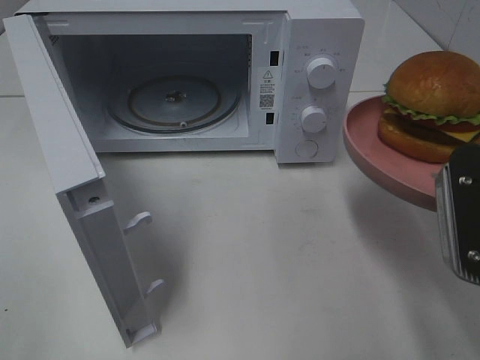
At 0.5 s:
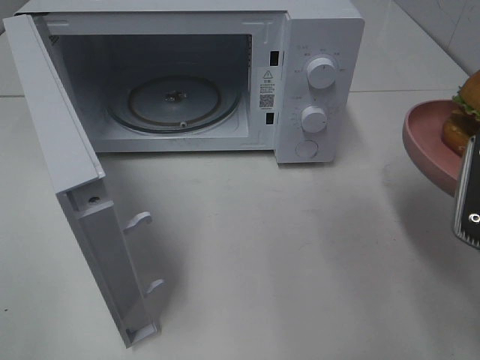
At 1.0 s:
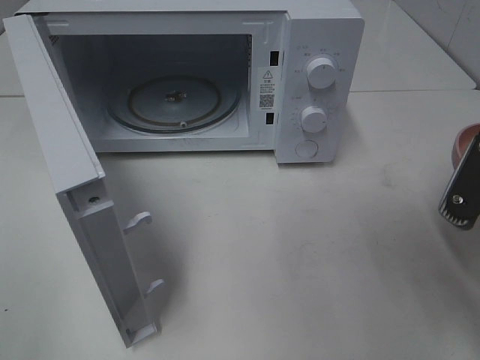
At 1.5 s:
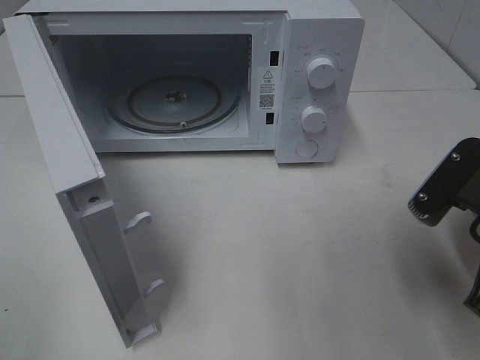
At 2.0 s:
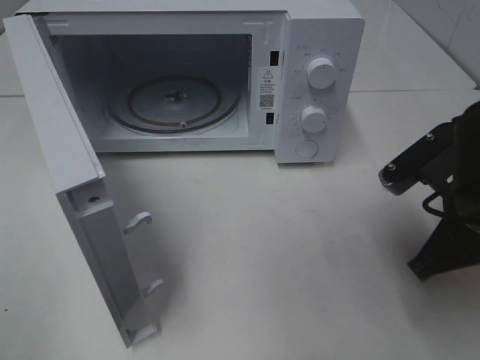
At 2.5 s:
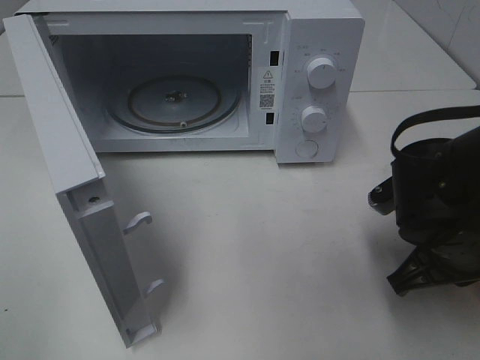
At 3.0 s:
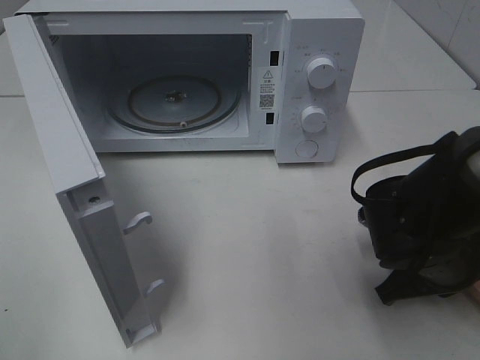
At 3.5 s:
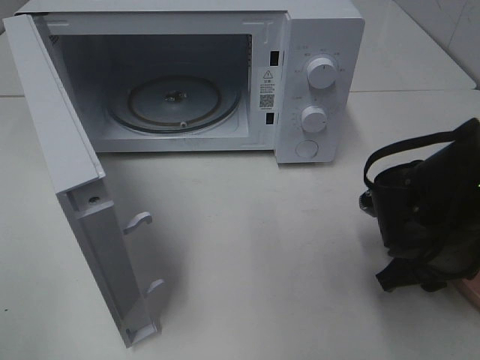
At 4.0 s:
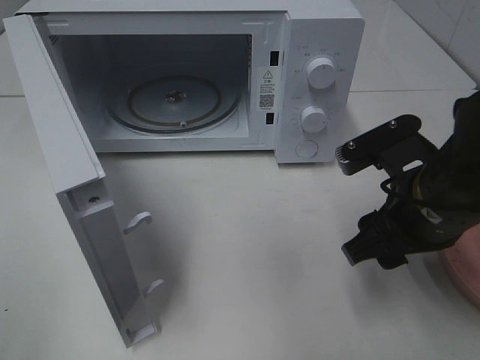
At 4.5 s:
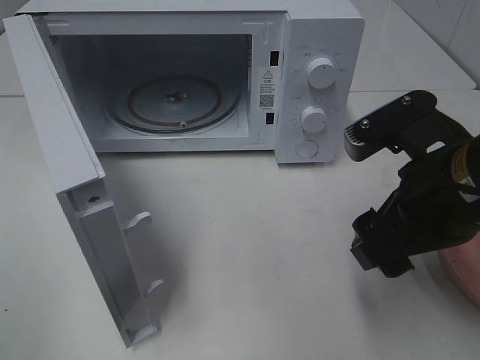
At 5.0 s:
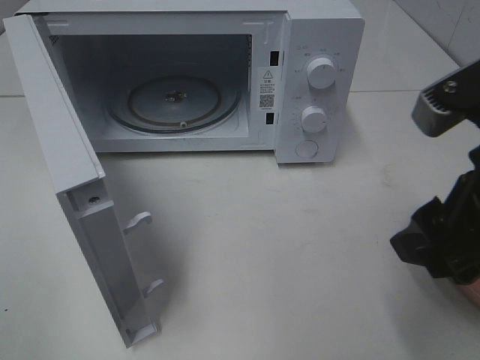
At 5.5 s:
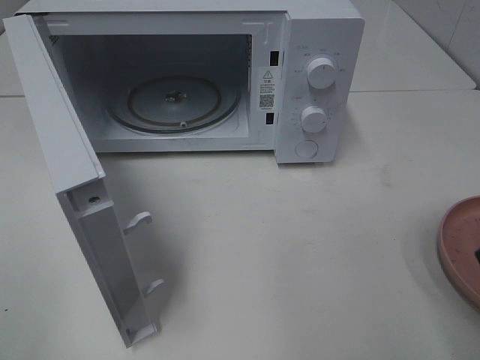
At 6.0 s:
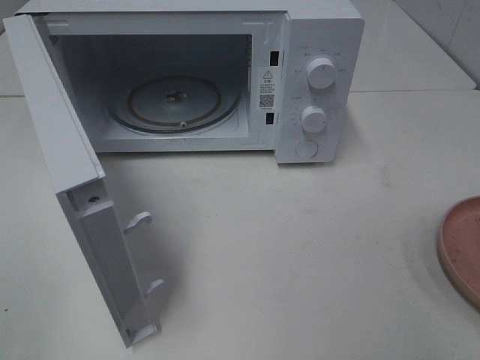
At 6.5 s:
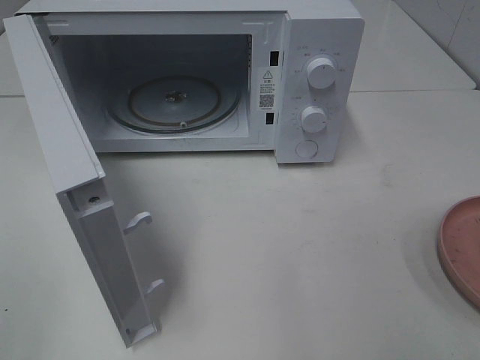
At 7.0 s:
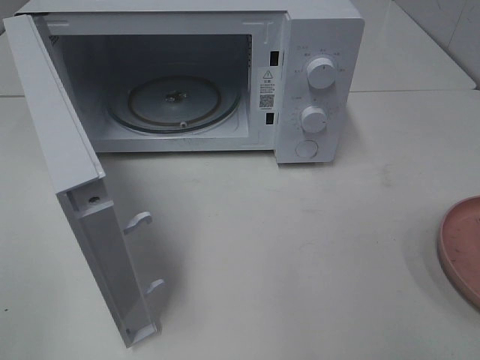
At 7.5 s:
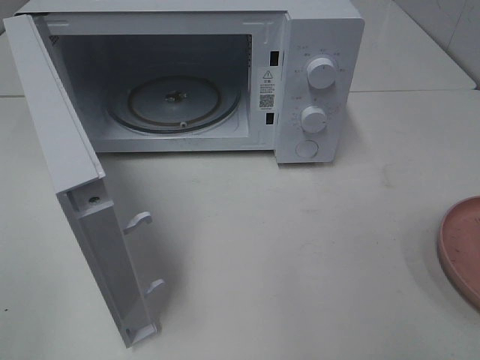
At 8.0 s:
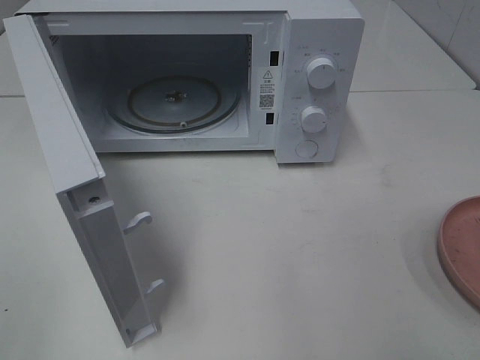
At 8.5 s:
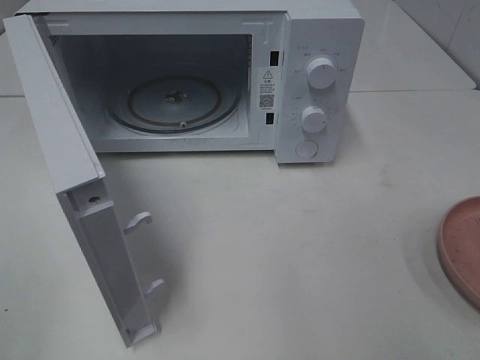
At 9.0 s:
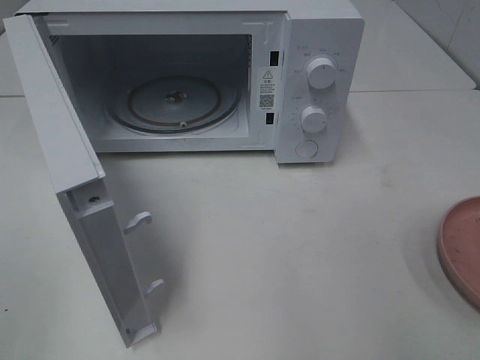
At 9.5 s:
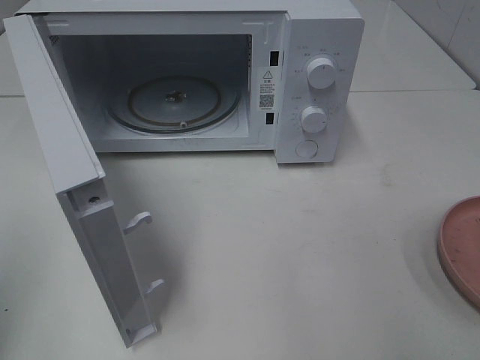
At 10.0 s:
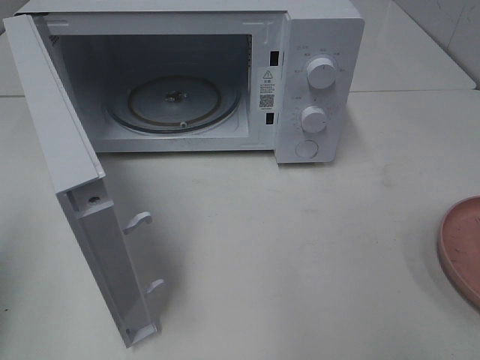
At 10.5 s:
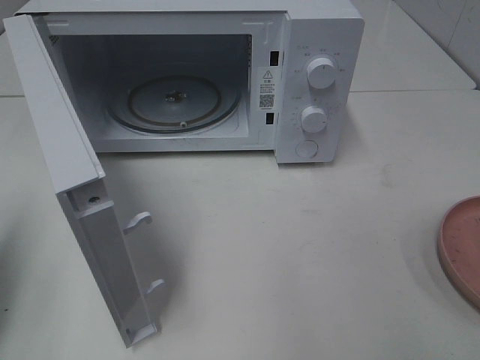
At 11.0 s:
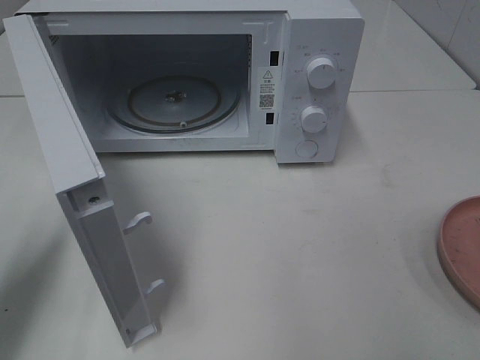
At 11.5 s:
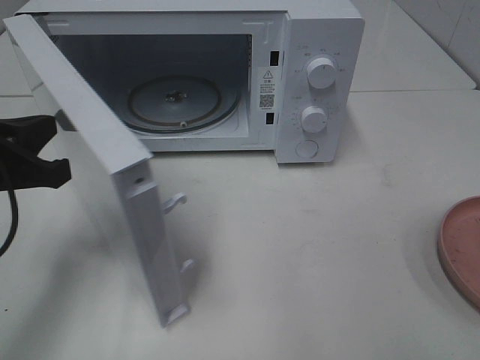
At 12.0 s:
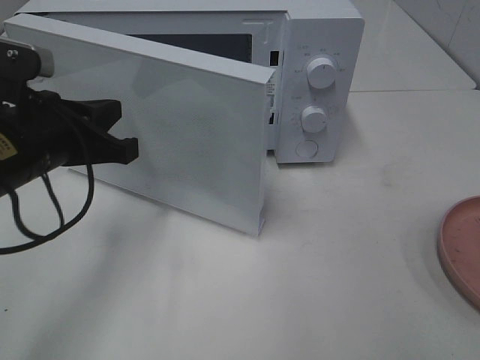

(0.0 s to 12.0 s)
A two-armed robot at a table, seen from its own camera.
Task of the whole recording: Heat the burger.
Step, 0.0 s - 3.5 s: Right hand: place the plate on the table.
0.0 s - 2.0 s: The right gripper heads downward and forward, covering about 10 cm.
2.0 s - 4.0 s: The right gripper reaches roughly 10 cm downward, then returns, and opens up.
4.0 s - 6.0 s: The right gripper moves backward, upward and to the right, approximately 20 cm.
10.0 s - 12.0 s: The left gripper is displaced to the right, forward and downward by approximately 20 cm.

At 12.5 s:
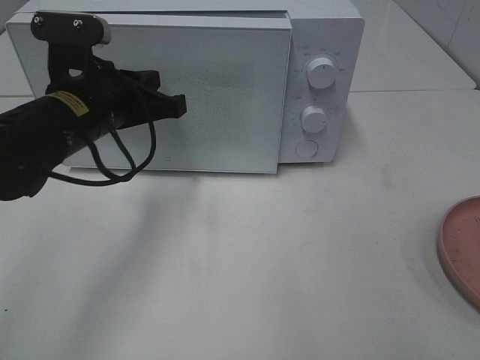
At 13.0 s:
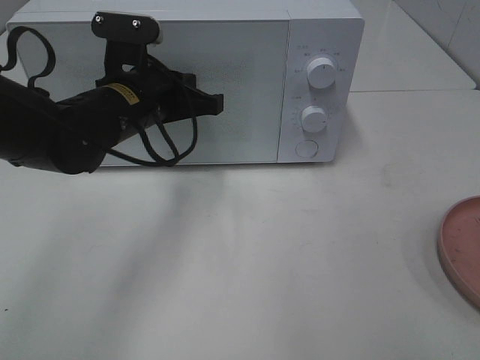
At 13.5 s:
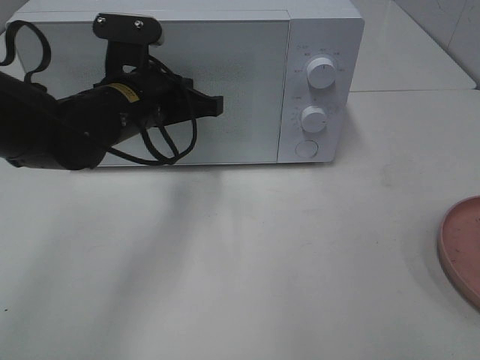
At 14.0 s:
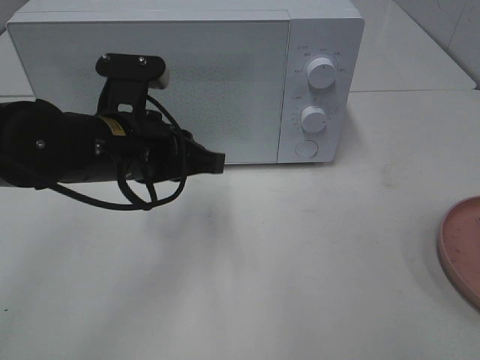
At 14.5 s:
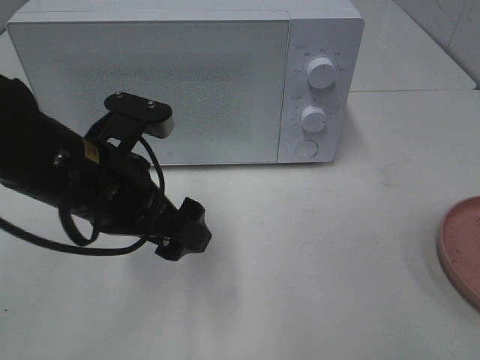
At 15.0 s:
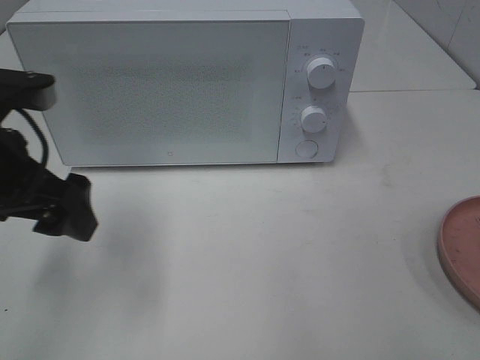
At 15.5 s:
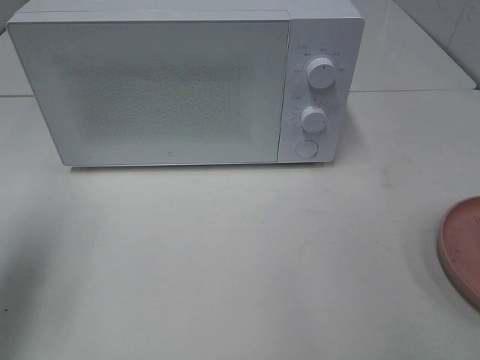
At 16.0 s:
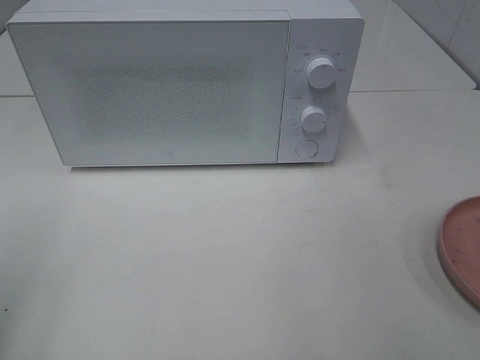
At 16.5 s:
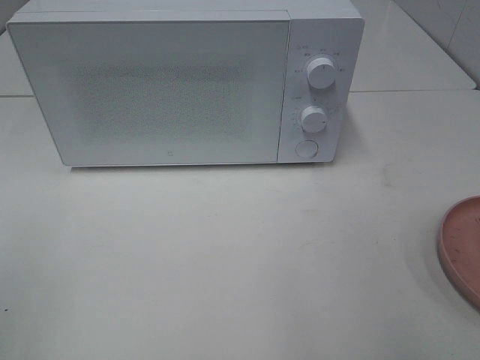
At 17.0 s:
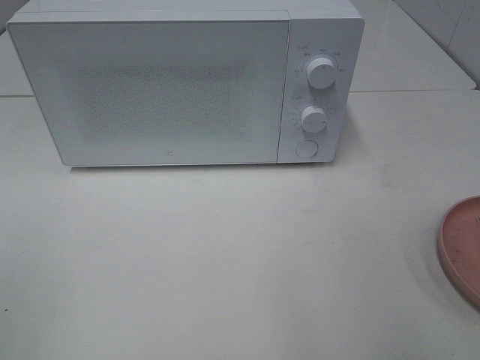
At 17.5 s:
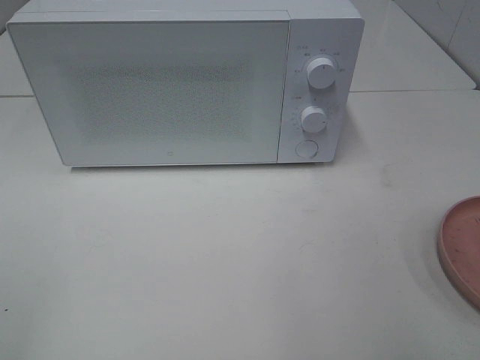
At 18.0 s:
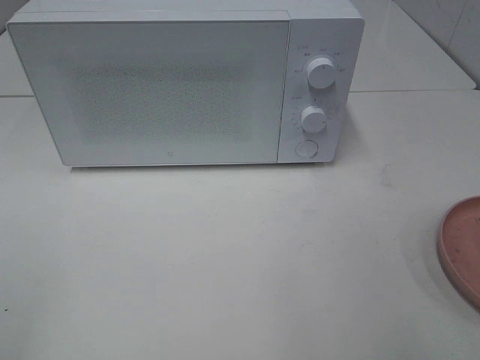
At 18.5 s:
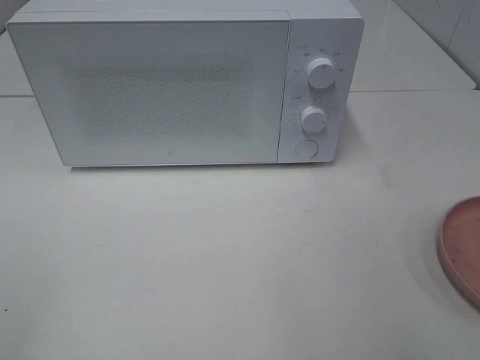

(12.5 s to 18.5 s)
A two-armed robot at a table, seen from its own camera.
Task of the whole recording: Heat the burger.
12.5 s - 14.5 s: The left gripper is displaced backward by approximately 10 cm, and opens up.
14.5 s - 16.5 s: The left gripper is displaced to the left, backward and upward by approximately 30 cm.

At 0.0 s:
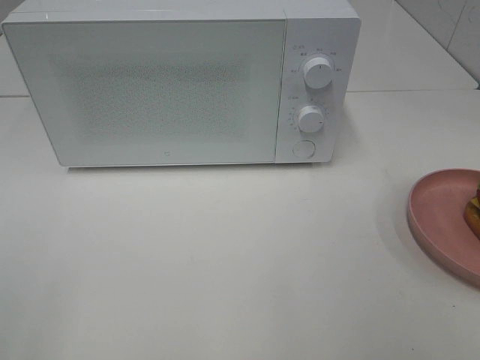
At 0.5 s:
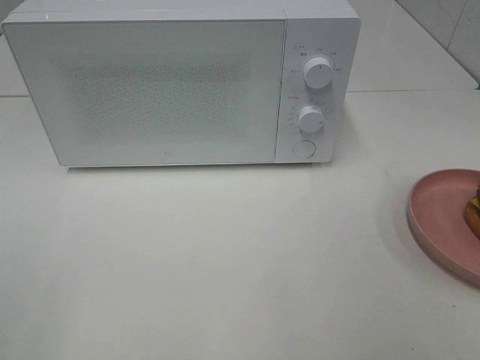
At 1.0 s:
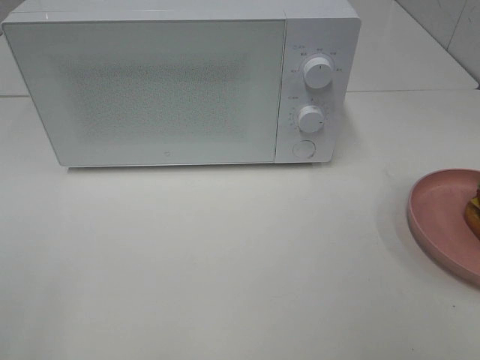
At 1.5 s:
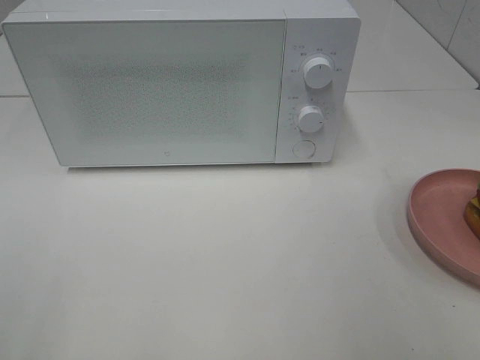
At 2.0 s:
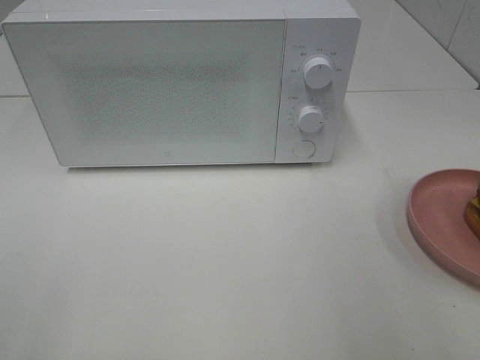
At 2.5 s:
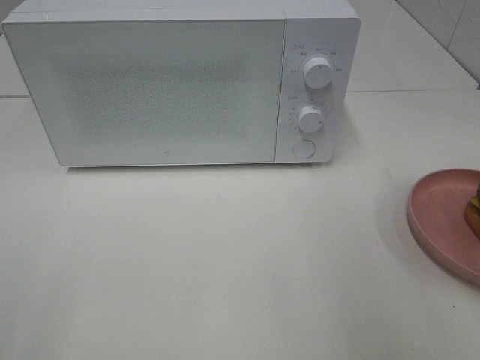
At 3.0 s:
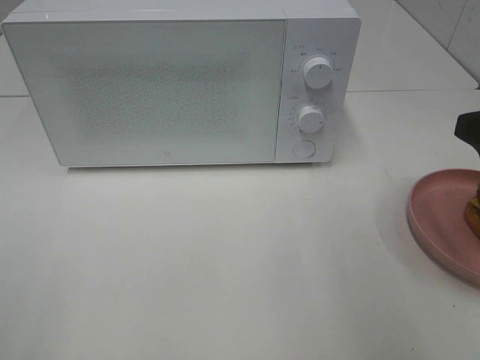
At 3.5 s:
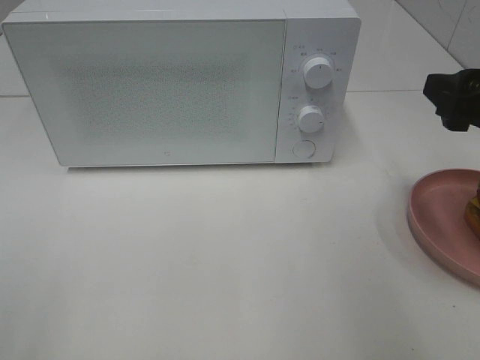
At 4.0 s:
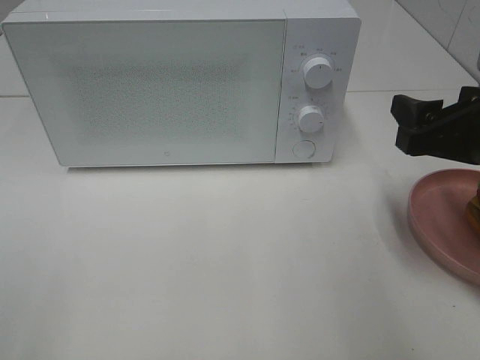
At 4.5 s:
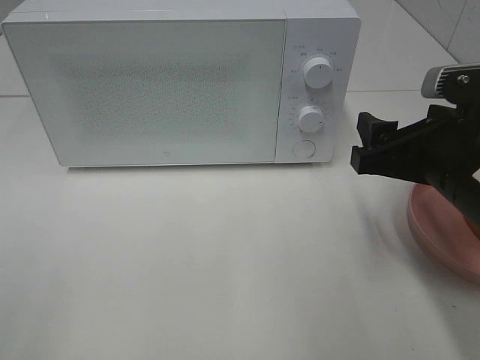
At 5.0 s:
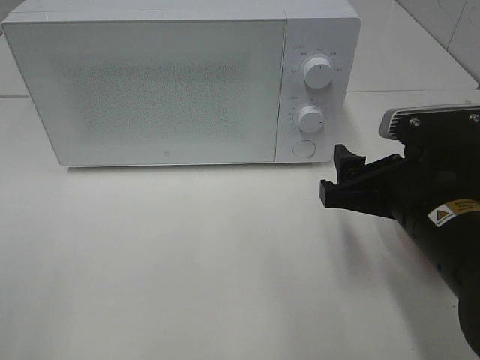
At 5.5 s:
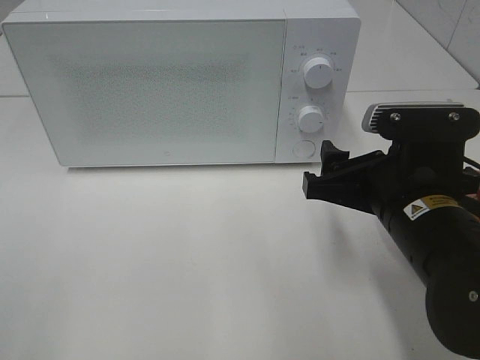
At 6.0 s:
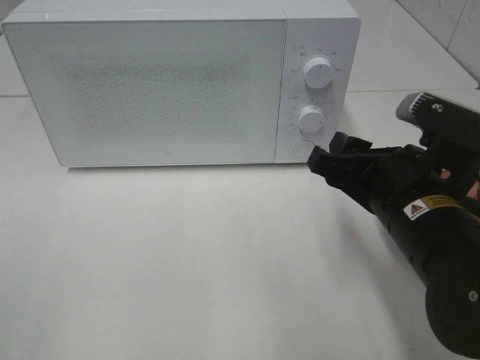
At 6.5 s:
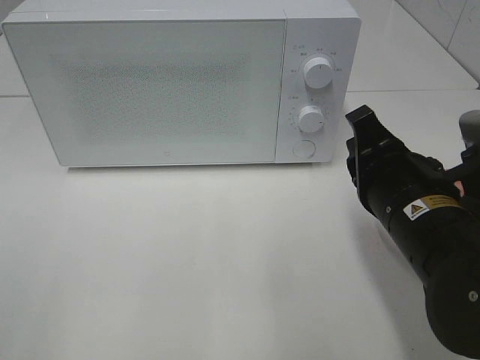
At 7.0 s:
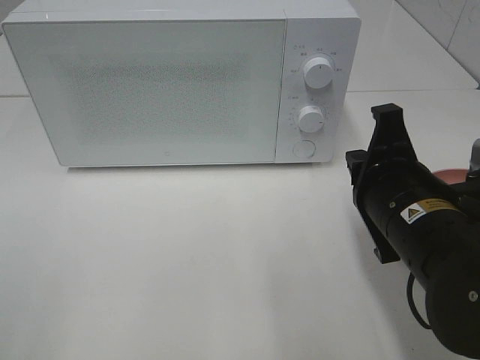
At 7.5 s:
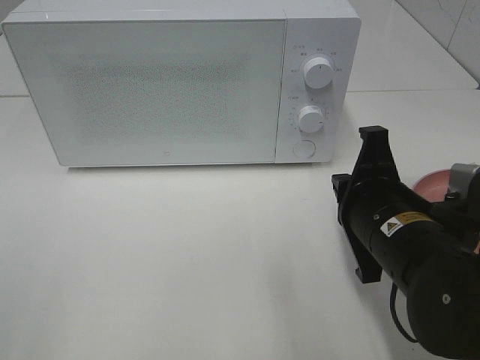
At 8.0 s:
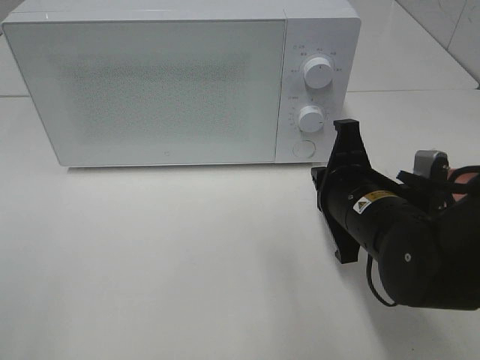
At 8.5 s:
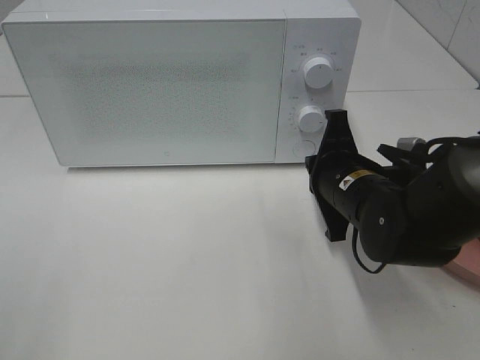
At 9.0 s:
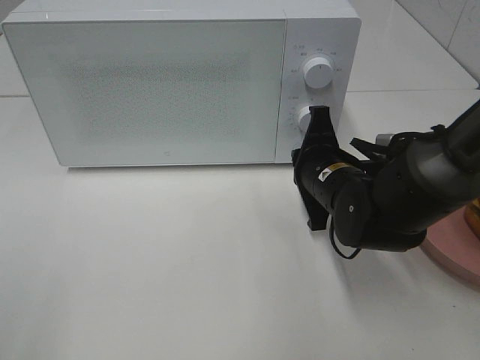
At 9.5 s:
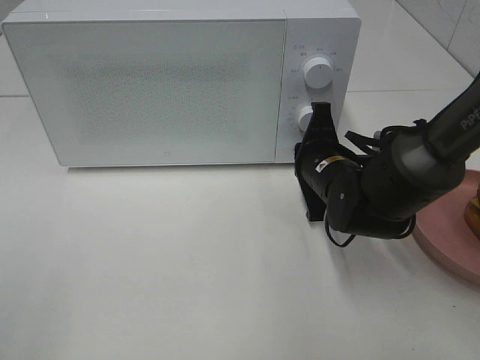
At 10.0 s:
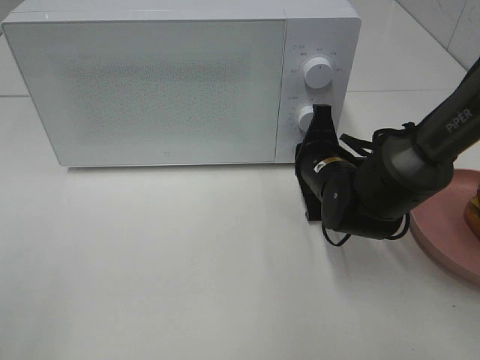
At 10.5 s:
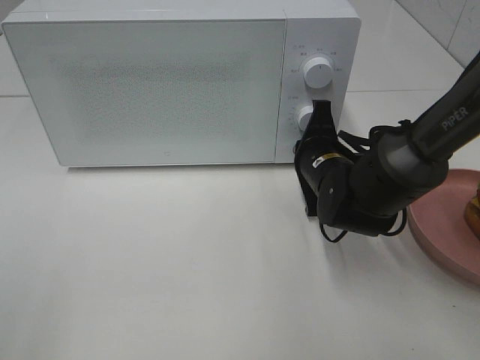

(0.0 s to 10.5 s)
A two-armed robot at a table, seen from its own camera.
Task of the whole recording: Heat the burger.
2.0 s - 4.0 s: The right gripper travels forward and downward by about 15 cm.
4.0 s - 6.5 s: The right gripper is displaced to the left by some 10 cm, and closes.
6.5 s - 8.5 s: The right gripper moves forward and downward, approximately 10 cm.
8.5 s - 10.5 s: The right gripper heads forward, covering roughly 5 cm.
